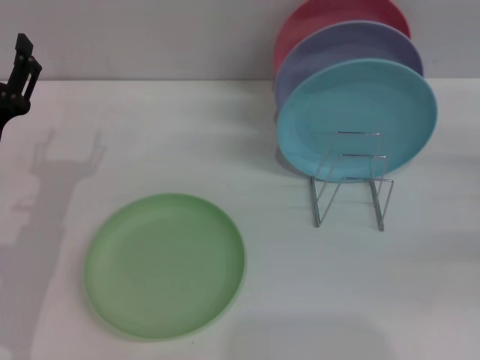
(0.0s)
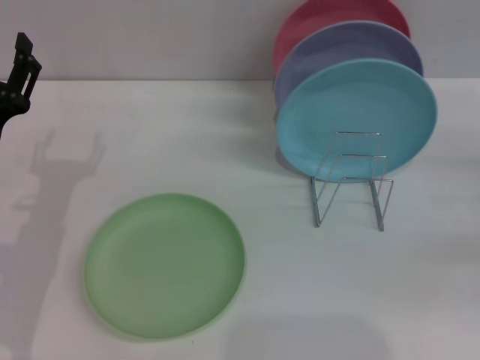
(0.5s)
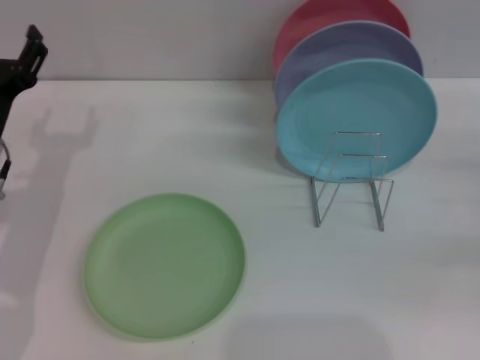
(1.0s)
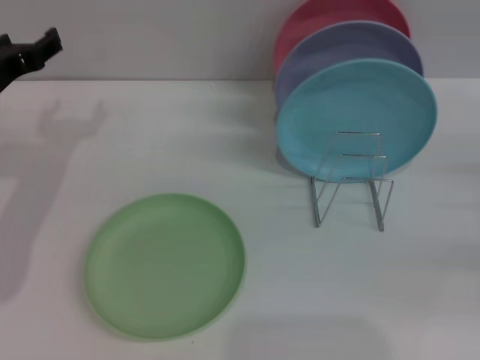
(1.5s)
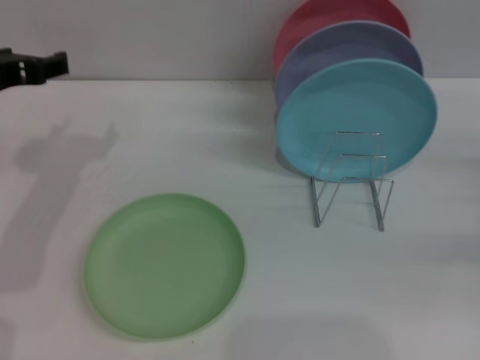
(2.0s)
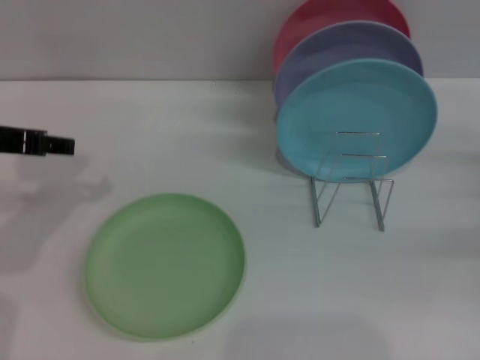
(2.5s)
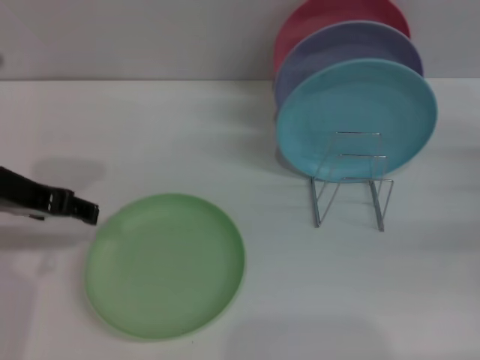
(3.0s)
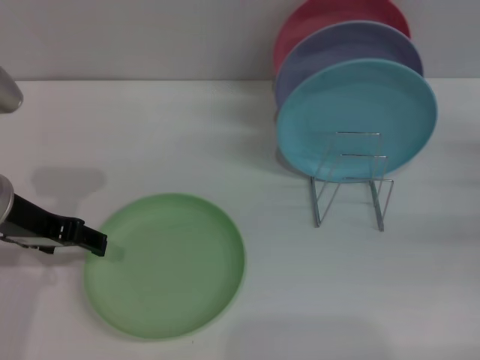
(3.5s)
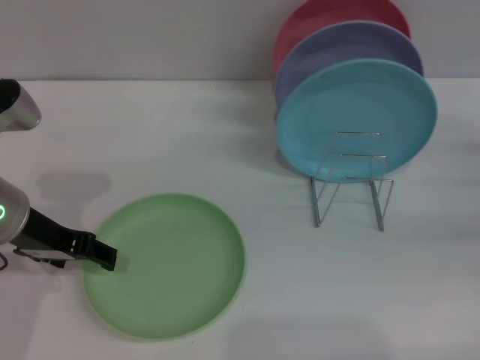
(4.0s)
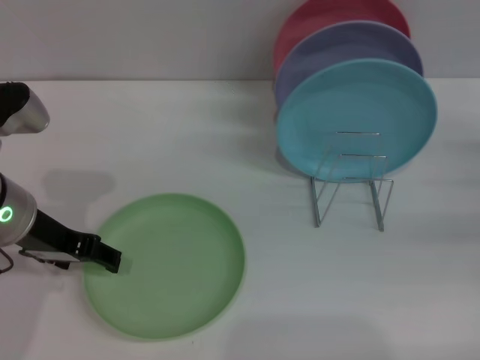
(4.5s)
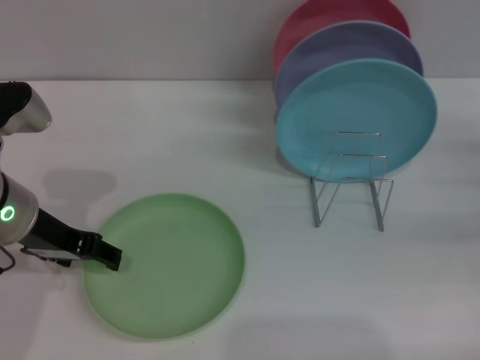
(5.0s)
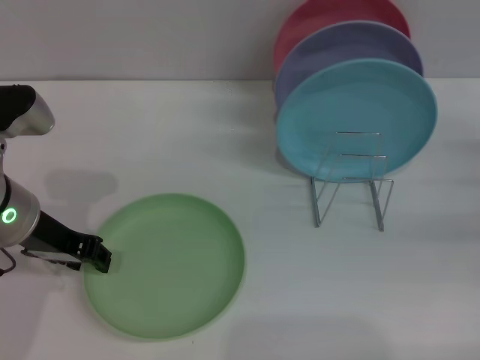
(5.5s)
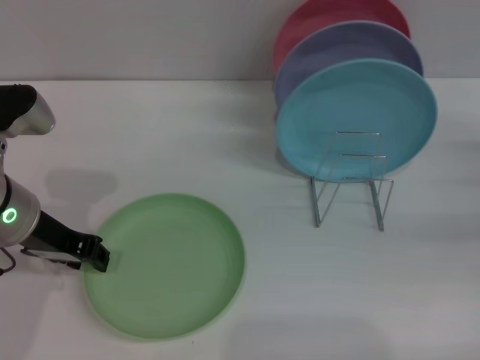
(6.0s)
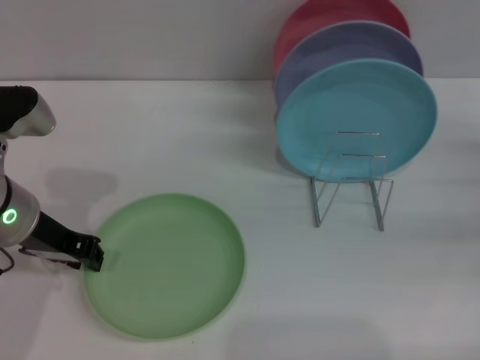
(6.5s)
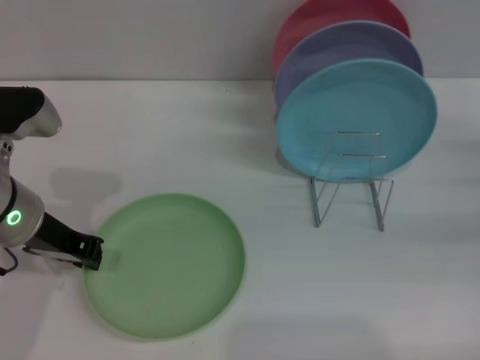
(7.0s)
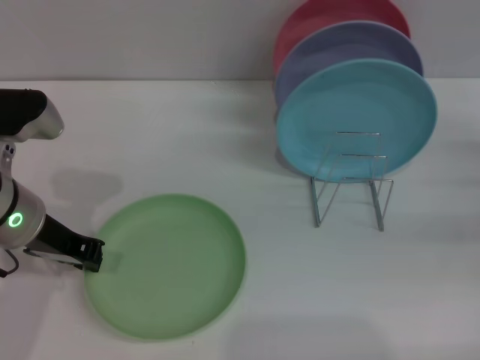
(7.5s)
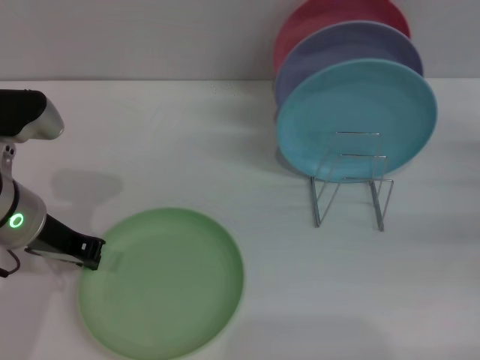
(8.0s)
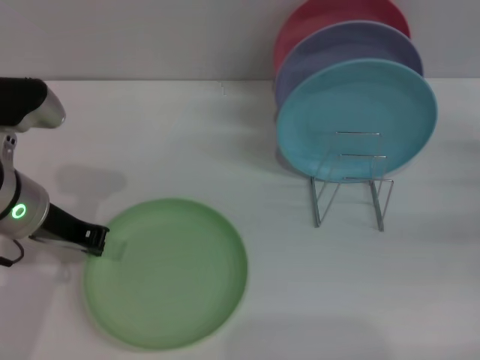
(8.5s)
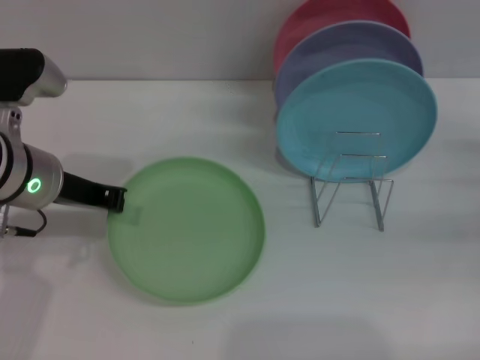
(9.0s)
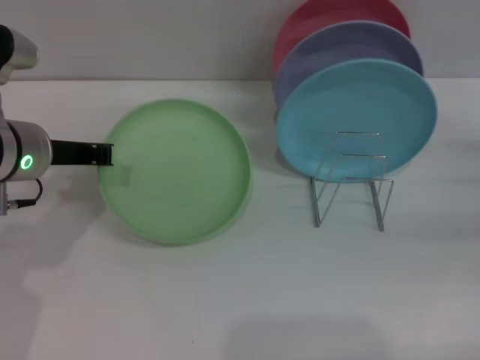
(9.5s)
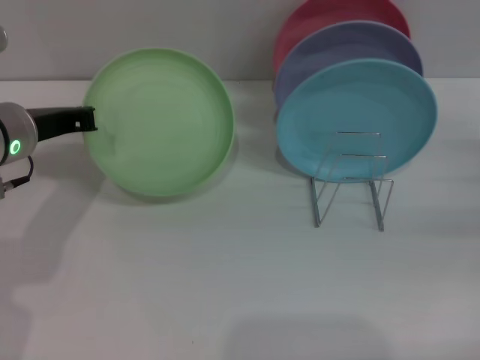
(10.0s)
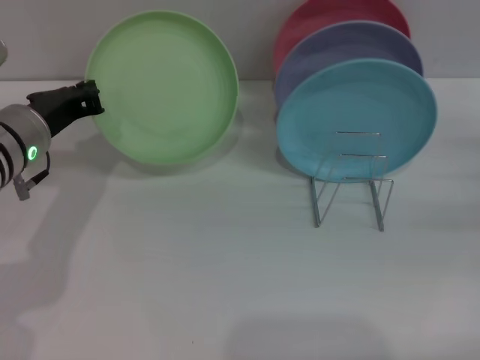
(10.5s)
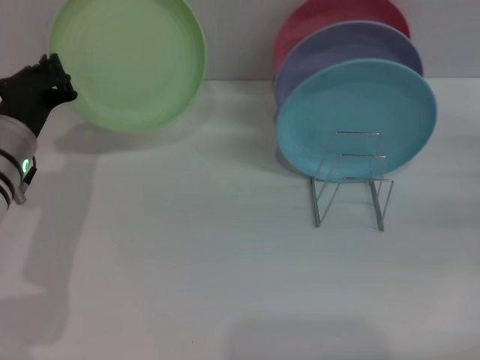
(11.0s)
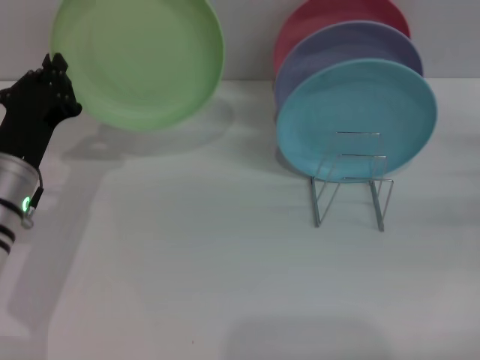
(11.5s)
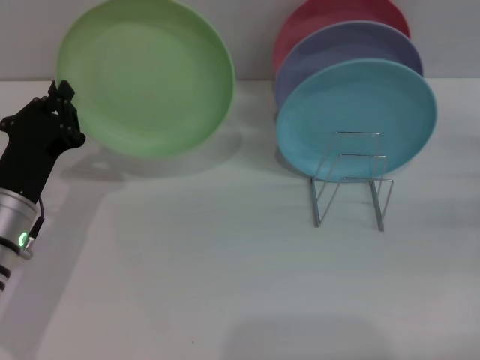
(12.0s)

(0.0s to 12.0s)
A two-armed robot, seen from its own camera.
Task of the whole recording: Grip the plate with one hand, pass it to the other, then set it on the shelf.
Step, 0.0s - 10.5s: Pick up the plate with the left gripper.
0.0s - 2.0s: The left gripper moves upward, some 15 cm.
2.0s - 4.0s: The left gripper moves downward, about 5 cm.
4.0s - 6.0s: The left gripper closes its fingers.
6.0s - 8.0s: The left gripper closes up.
10.0s - 12.0s: The left gripper goes about 10 cm downward and backward.

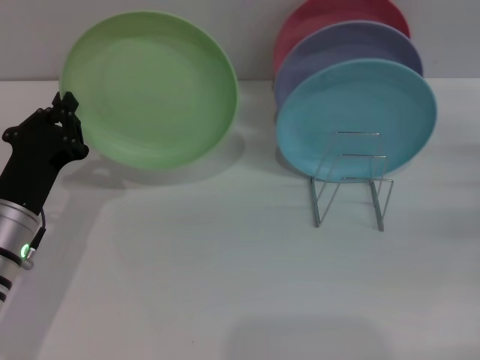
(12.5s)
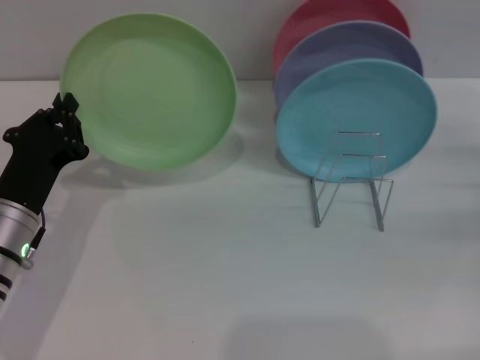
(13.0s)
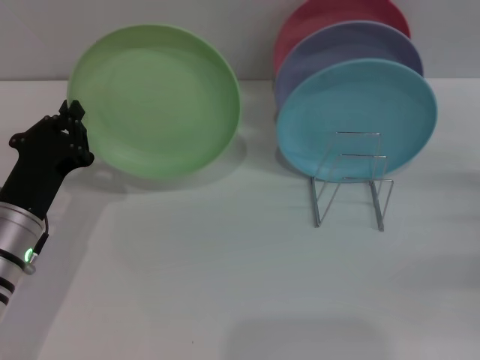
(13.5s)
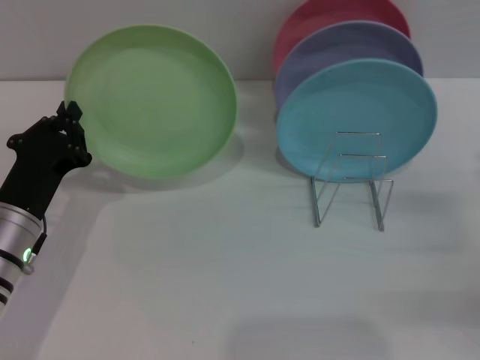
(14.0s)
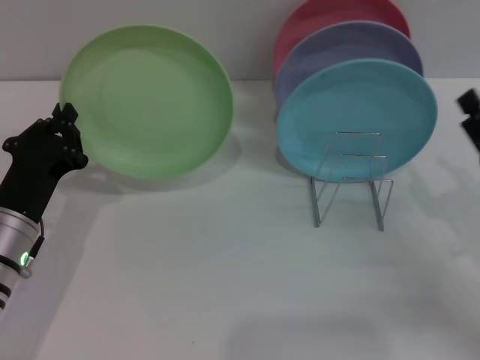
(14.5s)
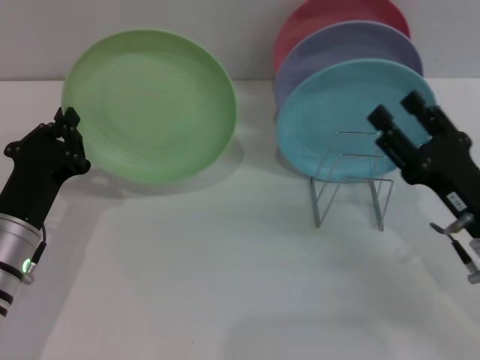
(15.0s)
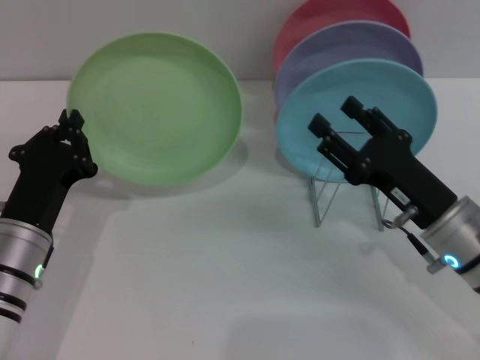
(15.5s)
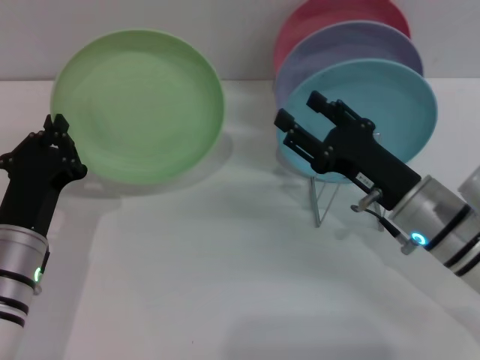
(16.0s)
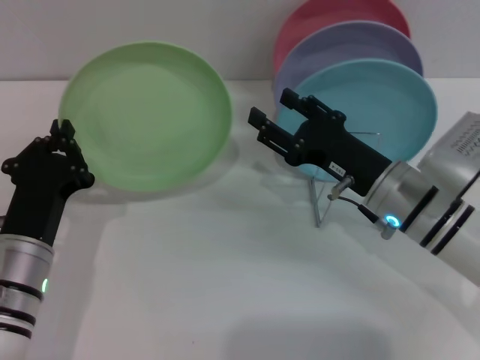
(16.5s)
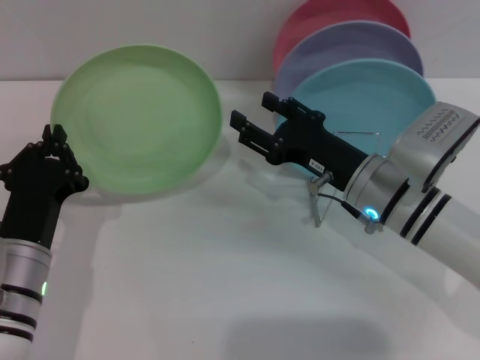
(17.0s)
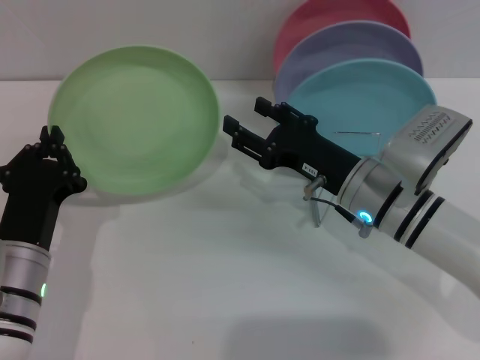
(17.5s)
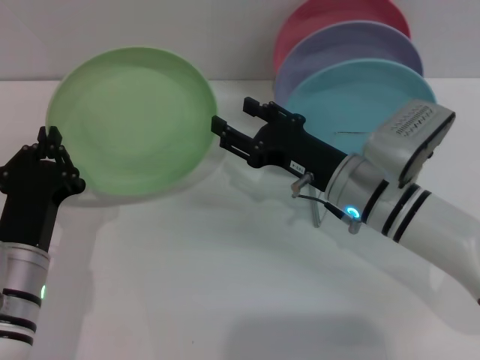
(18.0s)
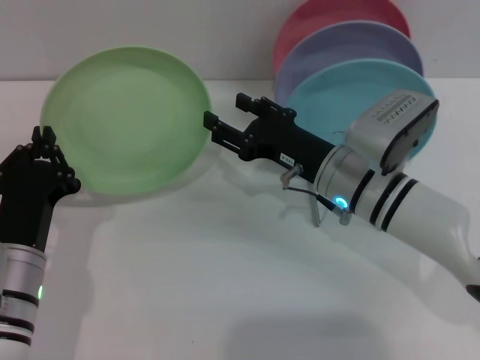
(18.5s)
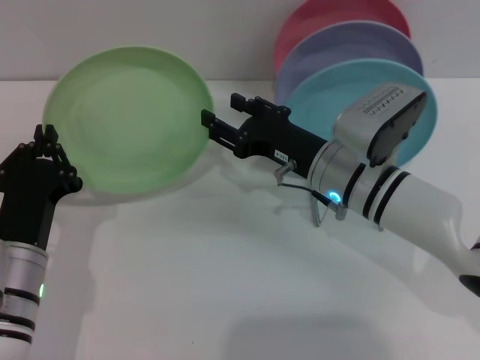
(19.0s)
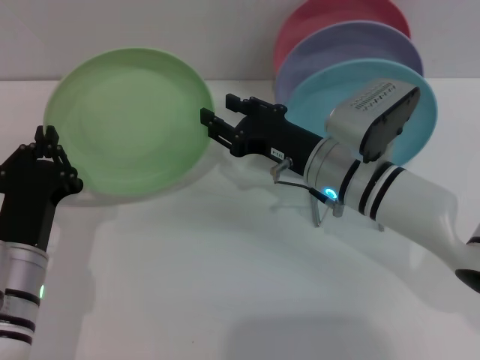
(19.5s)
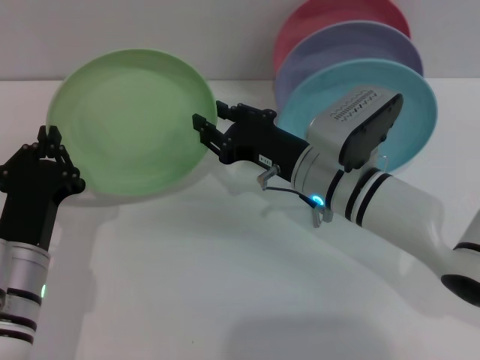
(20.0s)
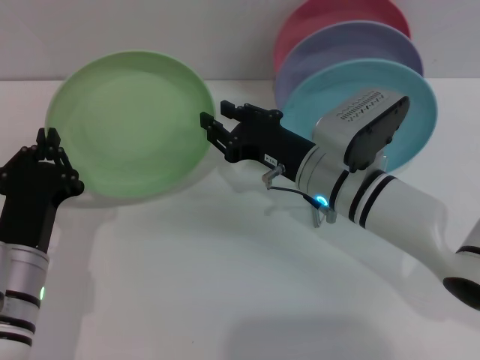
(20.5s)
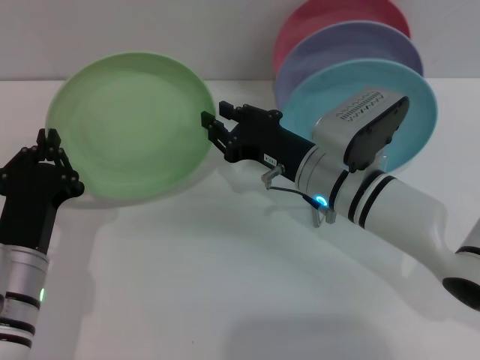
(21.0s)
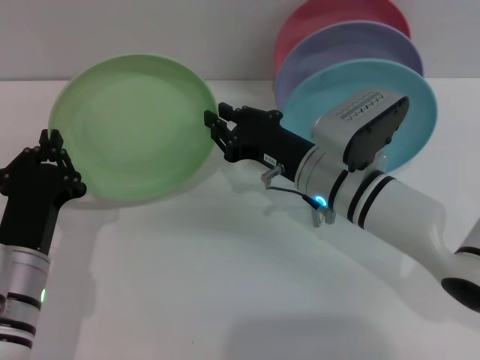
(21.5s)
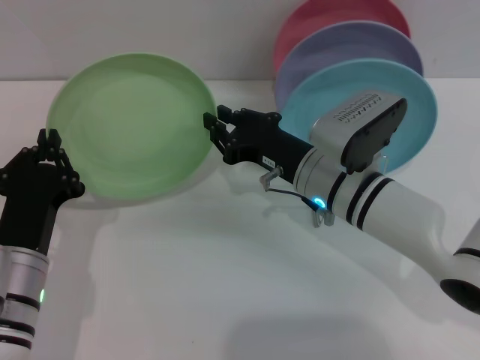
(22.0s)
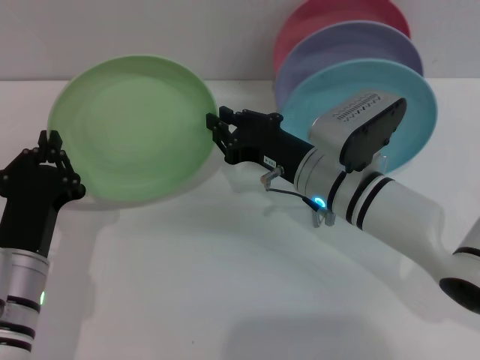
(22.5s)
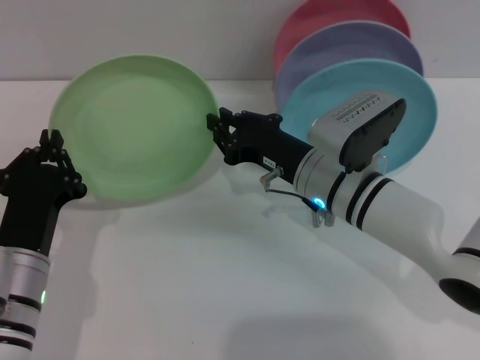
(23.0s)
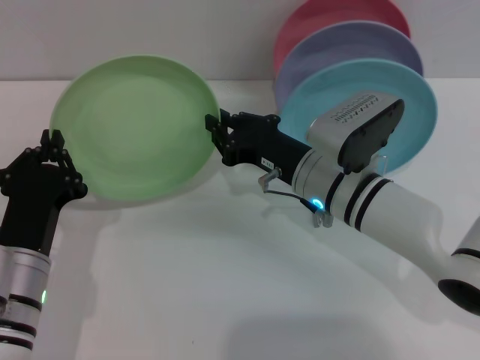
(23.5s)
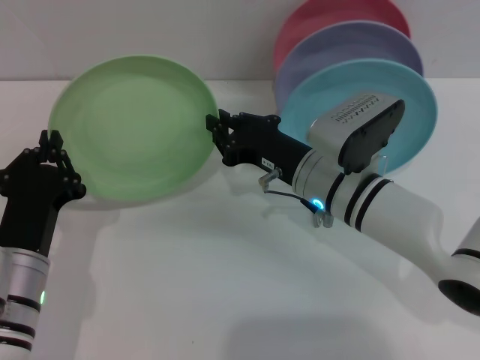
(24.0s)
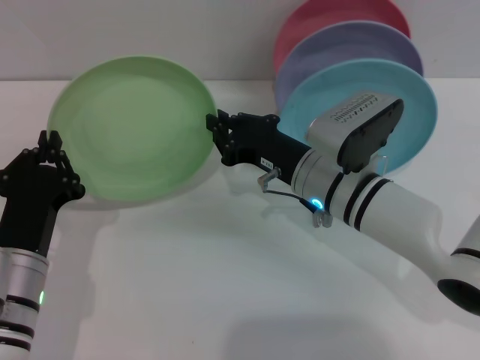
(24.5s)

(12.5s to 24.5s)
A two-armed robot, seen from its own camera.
Task of the whole recording: Grip the plate with one hand, pass it to the other, then set it on the shelf.
12.5s - 14.5s: The right gripper moves to the left and backward, about 15 cm.
14.5s - 16.5s: The right gripper moves to the left and forward, approximately 15 cm.
16.5s - 18.5s: The right gripper ends up about 5 cm from where it was.
18.5s - 20.5s: The right gripper closes up.
20.5s - 24.5s: Both grippers stay put.

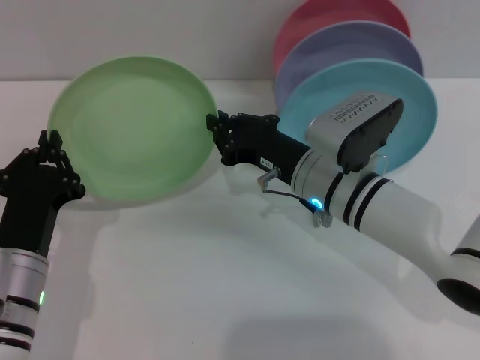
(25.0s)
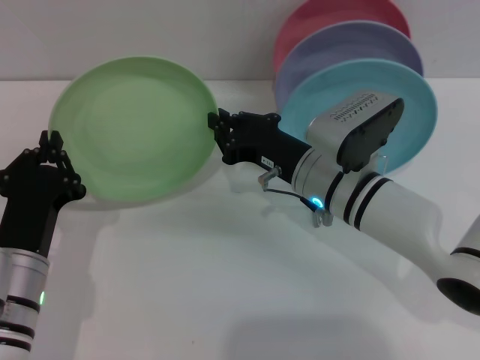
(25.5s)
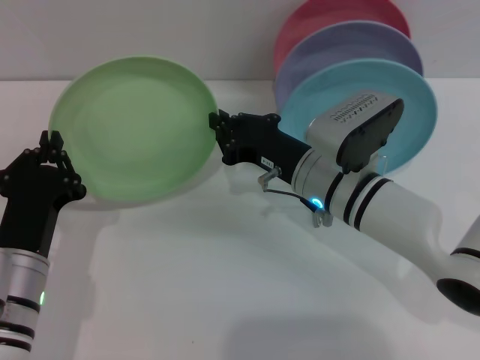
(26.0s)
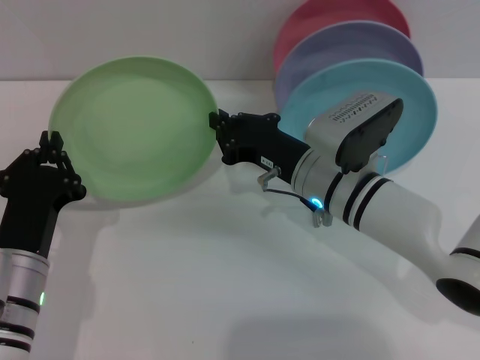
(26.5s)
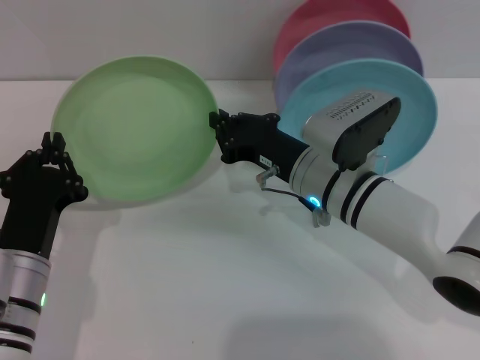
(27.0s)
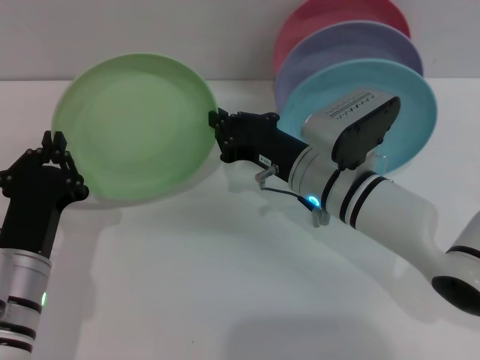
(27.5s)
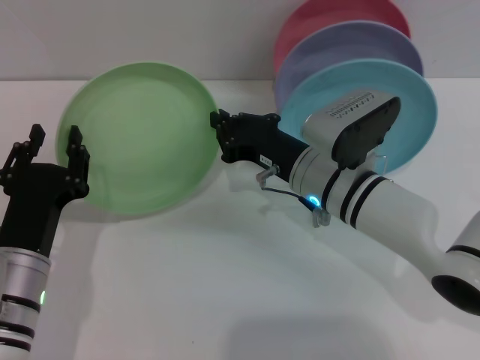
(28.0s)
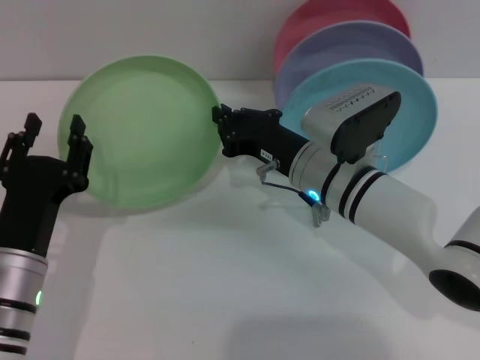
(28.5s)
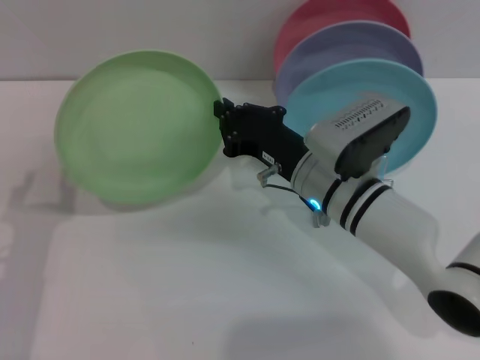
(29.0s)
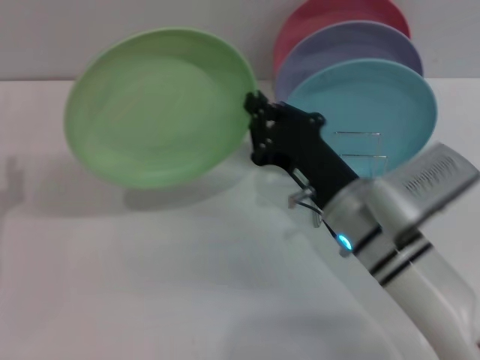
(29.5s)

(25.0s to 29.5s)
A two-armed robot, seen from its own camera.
Task of the whole recording: Grip the plate with one hand, pass it to the other, then set it on the shelf.
Step, 25.0s - 29.0s: Pass the plate from the left gripper to the right gripper.
25.0s - 27.0s: Neither gripper changes place.
27.0s - 29.5s: The right gripper is displaced backward by some 5 cm. The left gripper travels to the left by some 10 cm, and opens.
